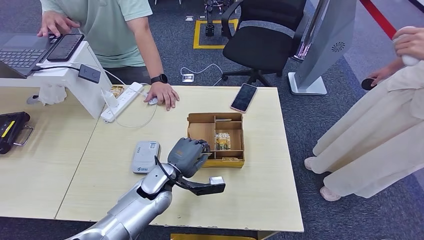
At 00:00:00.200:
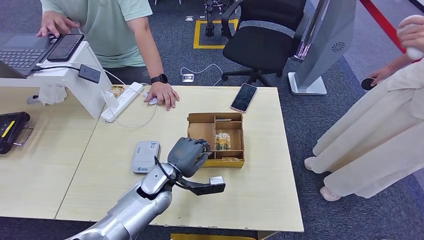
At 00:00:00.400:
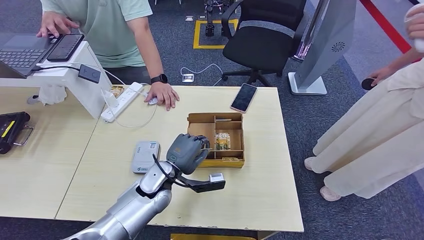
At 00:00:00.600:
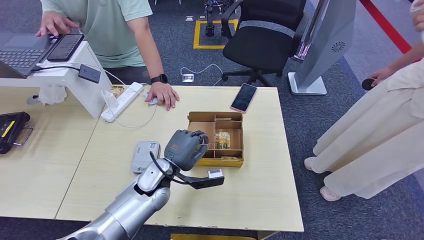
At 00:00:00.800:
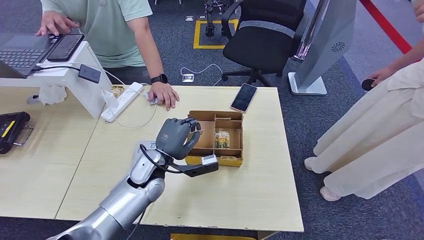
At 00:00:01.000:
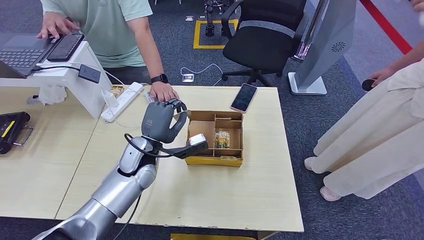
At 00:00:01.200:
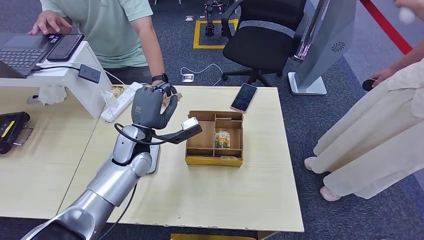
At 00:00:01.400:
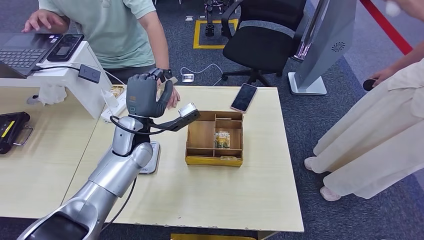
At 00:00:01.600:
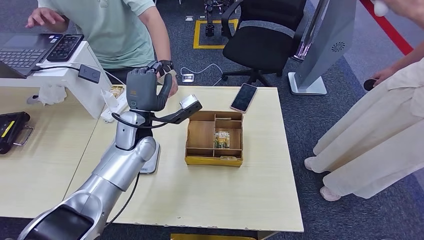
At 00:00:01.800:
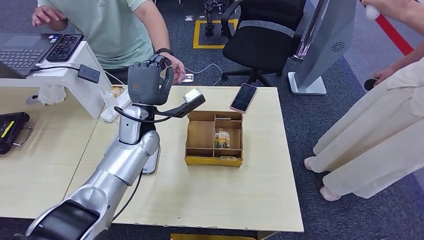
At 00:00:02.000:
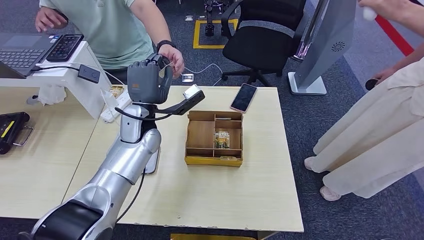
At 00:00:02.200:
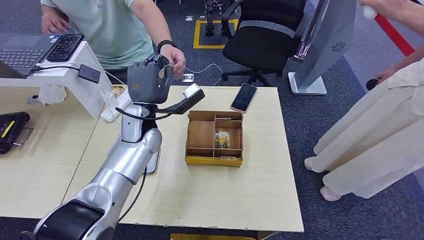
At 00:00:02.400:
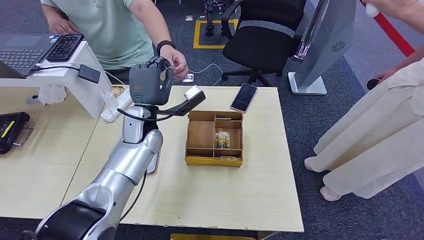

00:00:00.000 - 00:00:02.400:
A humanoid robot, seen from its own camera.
Step, 00:00:01.400 - 00:00:02.400: Hand the room key to the person.
00:00:00.000 - 00:00:01.200: The left hand goes roughly 10 cm upward, forward and to the left.
00:00:01.200 - 00:00:02.400: The left hand moves approximately 5 cm.
